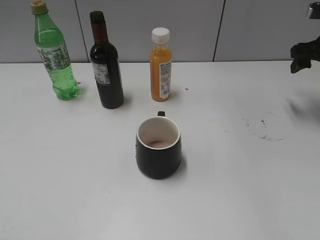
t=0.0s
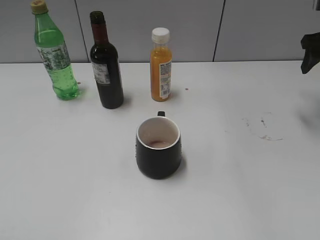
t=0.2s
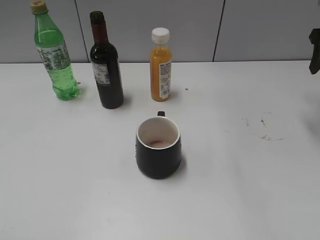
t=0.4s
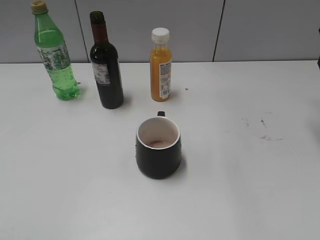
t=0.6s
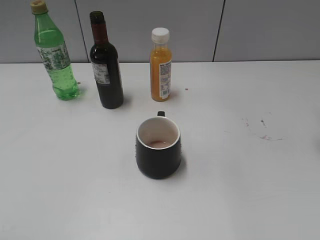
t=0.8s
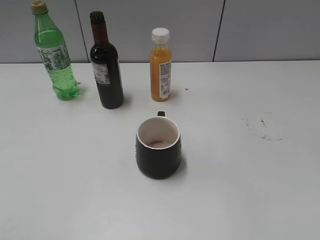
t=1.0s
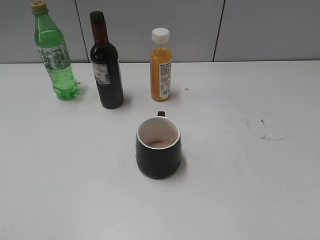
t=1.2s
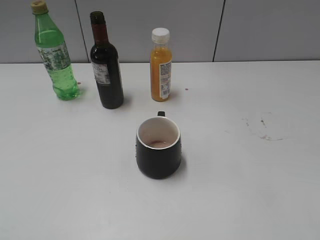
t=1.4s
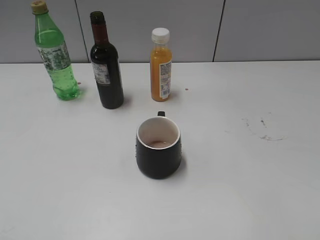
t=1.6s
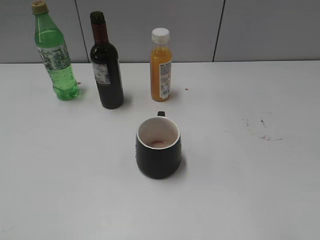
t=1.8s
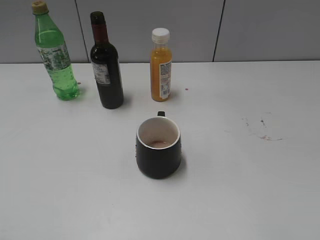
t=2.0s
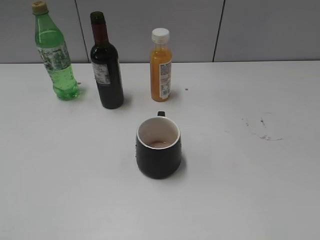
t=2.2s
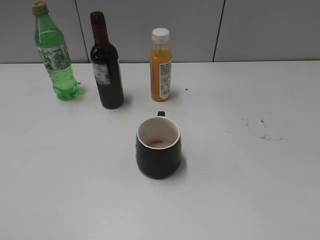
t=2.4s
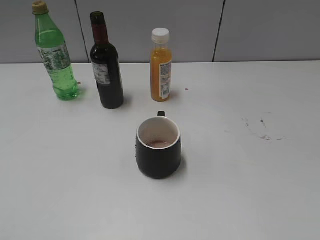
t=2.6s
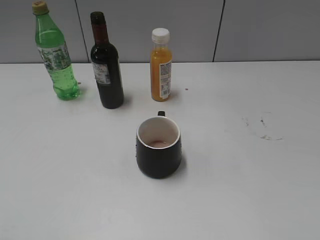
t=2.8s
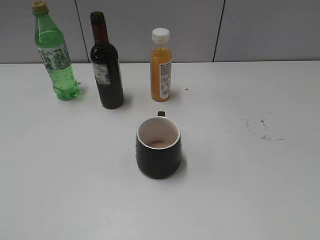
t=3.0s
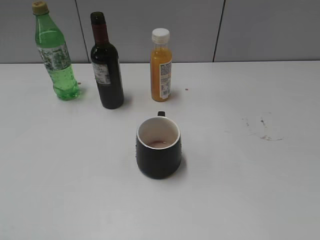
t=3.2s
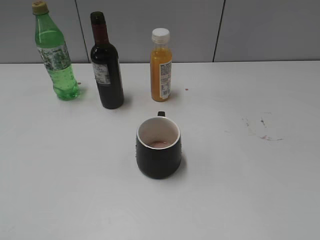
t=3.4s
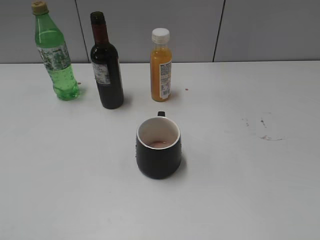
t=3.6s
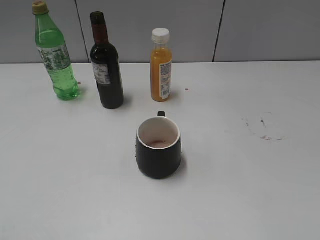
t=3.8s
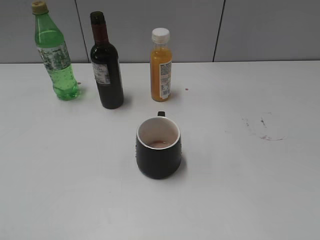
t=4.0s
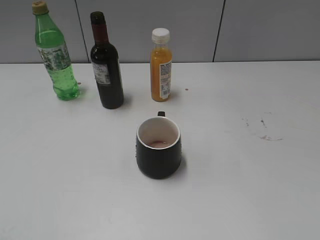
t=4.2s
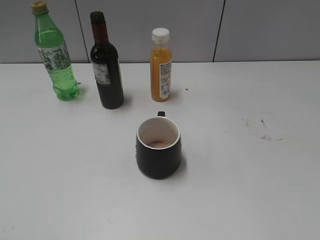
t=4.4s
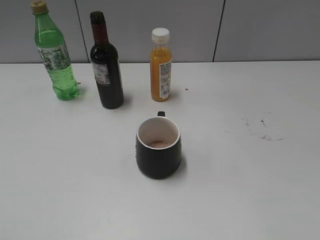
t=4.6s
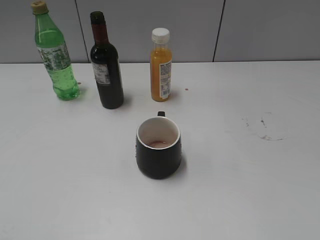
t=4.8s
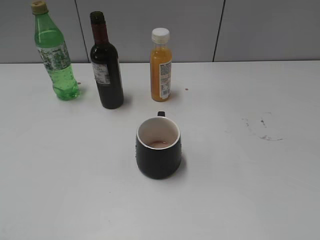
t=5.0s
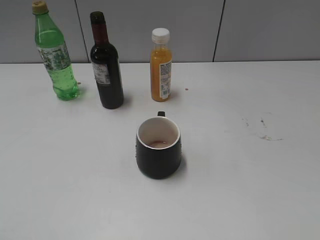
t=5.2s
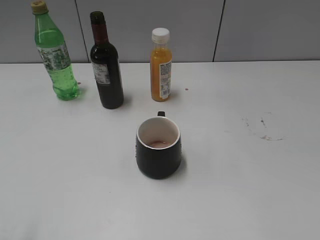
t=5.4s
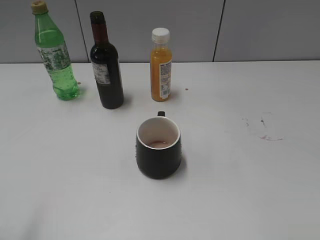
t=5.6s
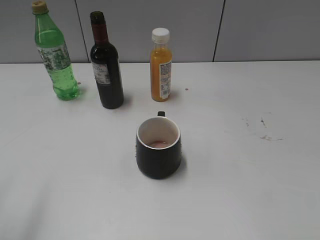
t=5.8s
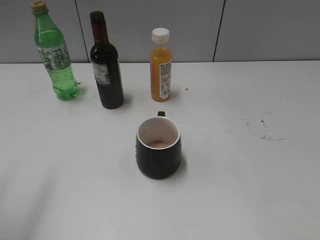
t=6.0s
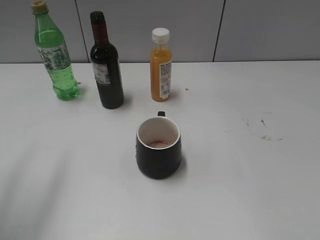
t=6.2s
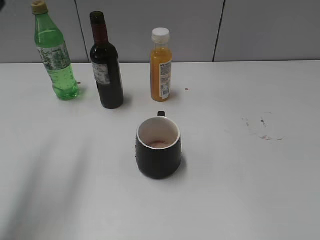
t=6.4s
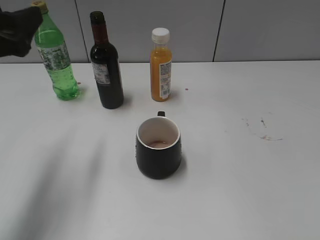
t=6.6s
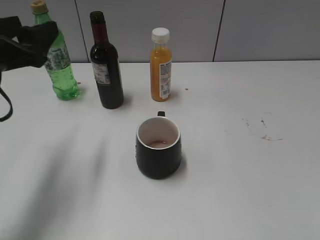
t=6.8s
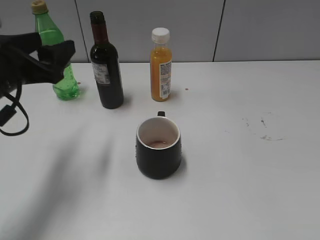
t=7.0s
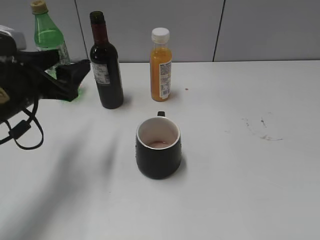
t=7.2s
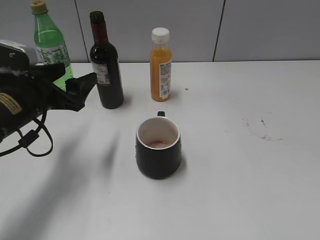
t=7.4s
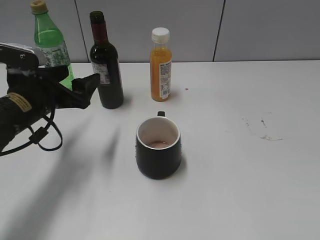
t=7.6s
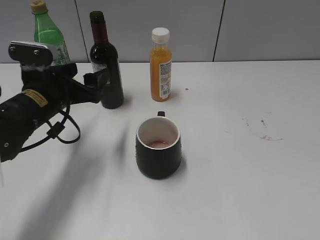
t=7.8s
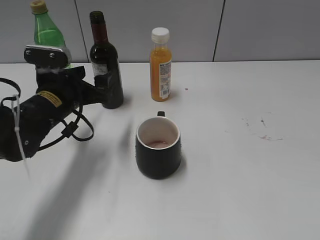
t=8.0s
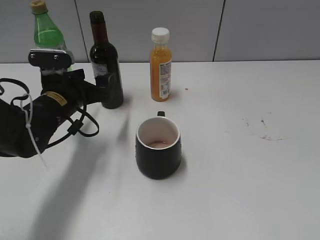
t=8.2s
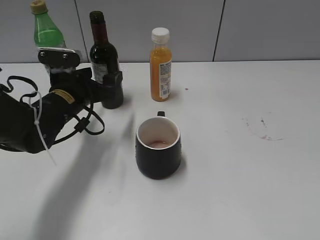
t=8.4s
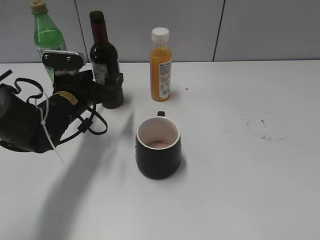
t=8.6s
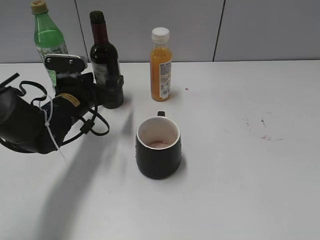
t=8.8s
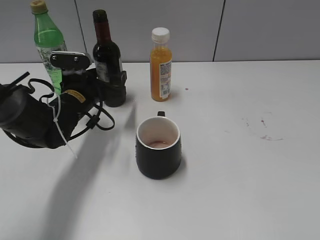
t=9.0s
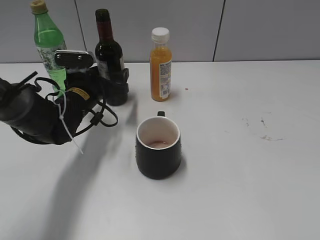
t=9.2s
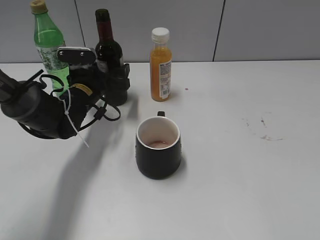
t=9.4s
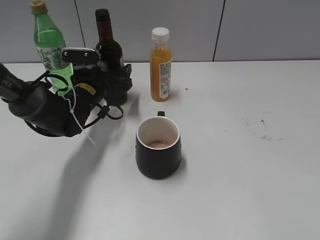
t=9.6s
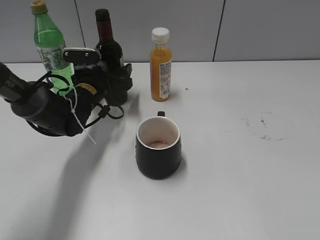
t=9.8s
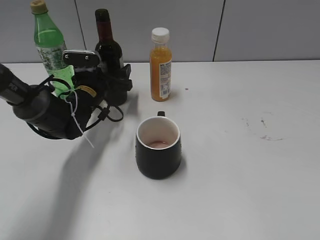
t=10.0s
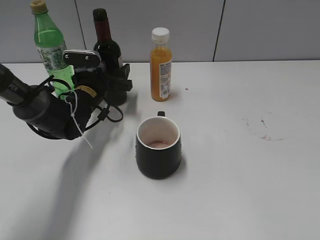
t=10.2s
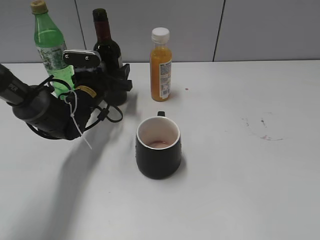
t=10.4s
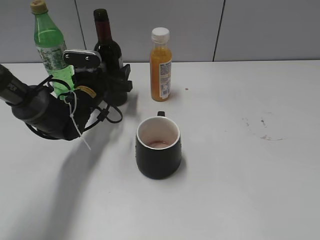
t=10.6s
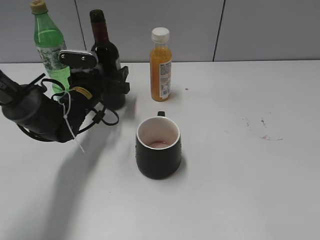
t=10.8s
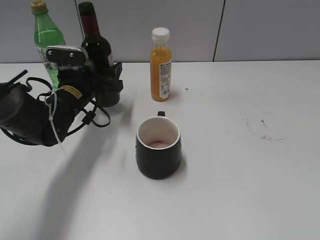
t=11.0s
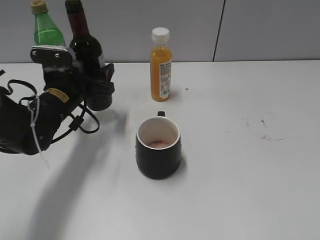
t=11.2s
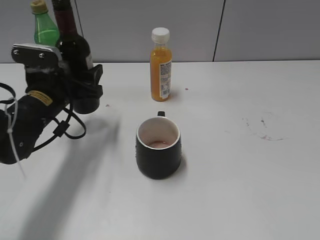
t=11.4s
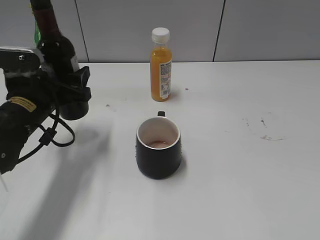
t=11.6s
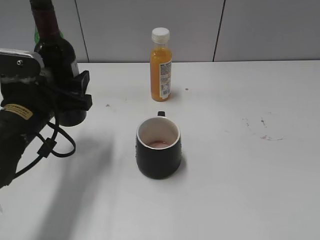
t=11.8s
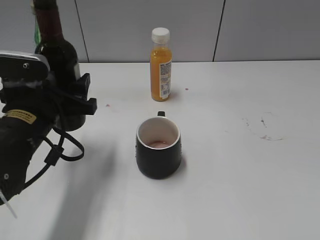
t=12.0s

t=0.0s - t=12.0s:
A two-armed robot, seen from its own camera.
Step, t=0.0s - t=10.6s: Grasp the bottle with red wine with left gripper.
t=0.0s - t=1.6s: The right gripper shifts approximately 30 cm backward.
t=3.0s - t=4.4s: The two grippers keep their place.
t=4.4s - t=6.0s: The left gripper heads forward, covering approximately 15 cm.
t=6.0s - t=7.6s: The left gripper travels downward, forward and to the right by roughly 25 cm, and opens.
t=7.6s - t=9.0s: The left gripper travels forward, to the right and downward by about 10 cm.
t=9.0s - t=10.4s: The left gripper closes its fingers.
t=10.4s - t=12.0s: The left gripper goes some 20 cm backward and upward.

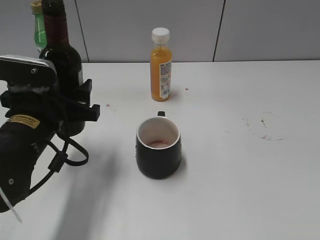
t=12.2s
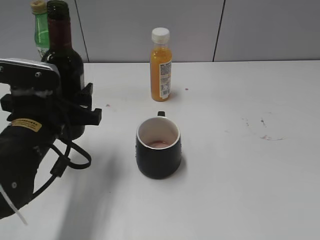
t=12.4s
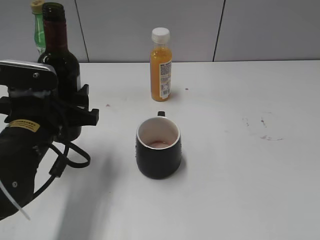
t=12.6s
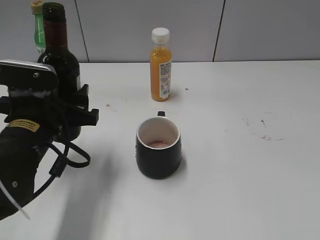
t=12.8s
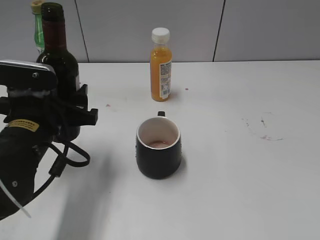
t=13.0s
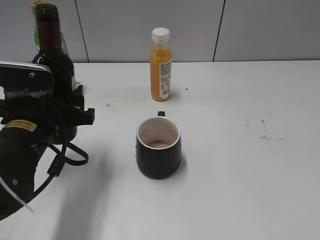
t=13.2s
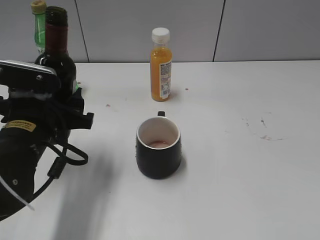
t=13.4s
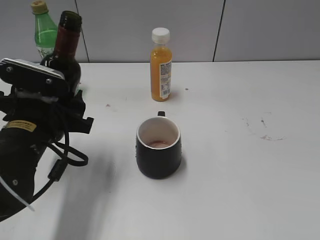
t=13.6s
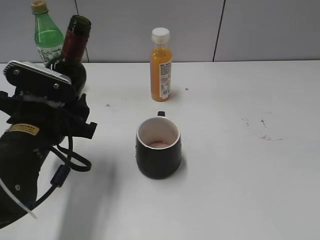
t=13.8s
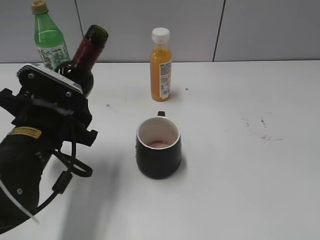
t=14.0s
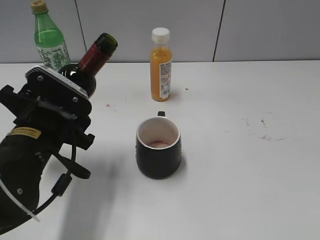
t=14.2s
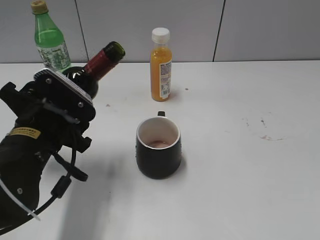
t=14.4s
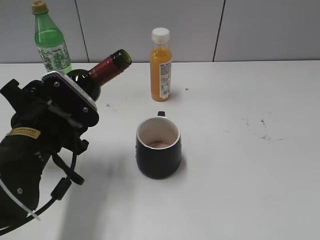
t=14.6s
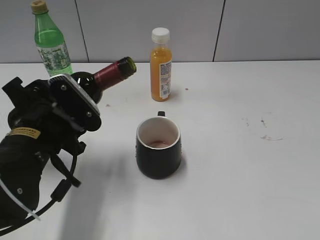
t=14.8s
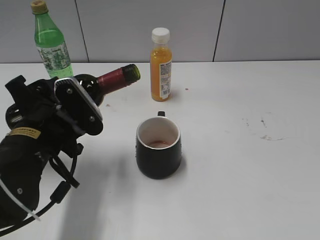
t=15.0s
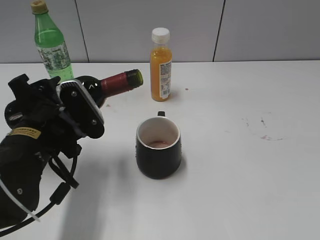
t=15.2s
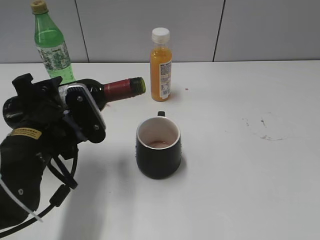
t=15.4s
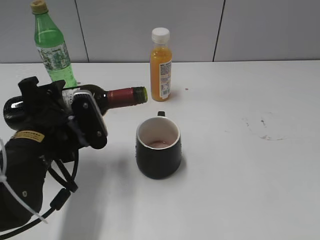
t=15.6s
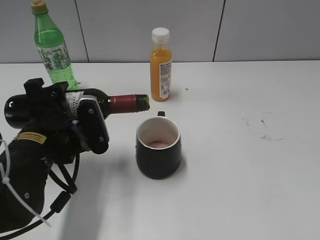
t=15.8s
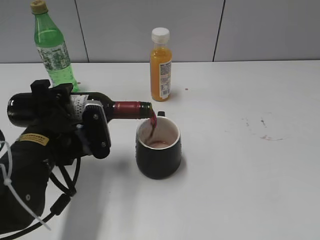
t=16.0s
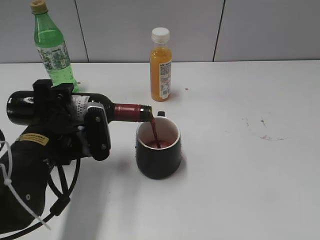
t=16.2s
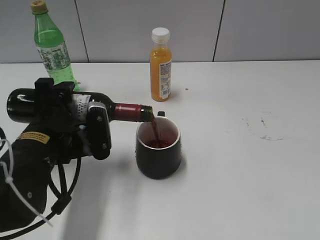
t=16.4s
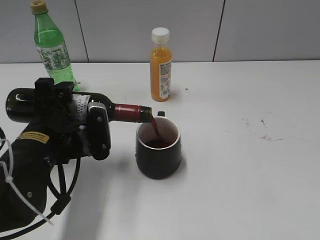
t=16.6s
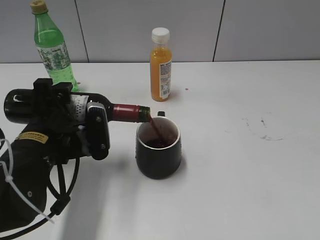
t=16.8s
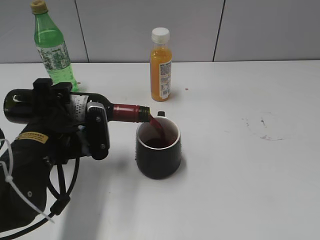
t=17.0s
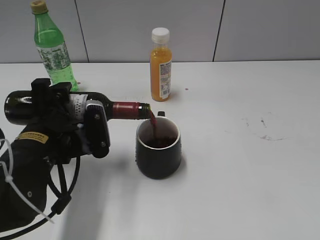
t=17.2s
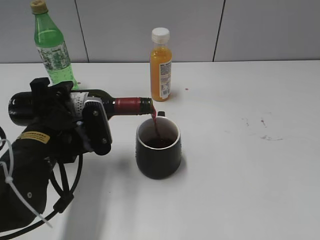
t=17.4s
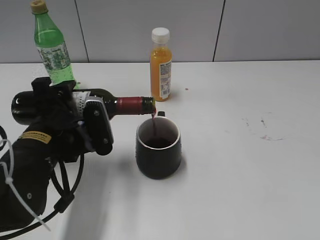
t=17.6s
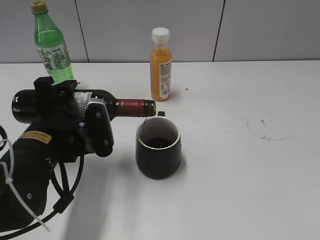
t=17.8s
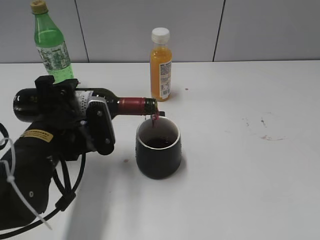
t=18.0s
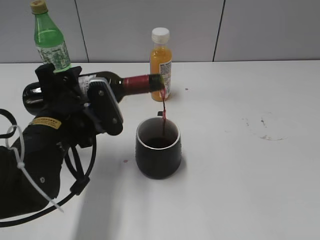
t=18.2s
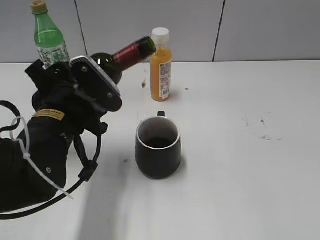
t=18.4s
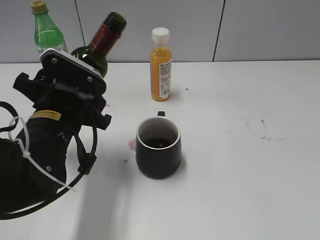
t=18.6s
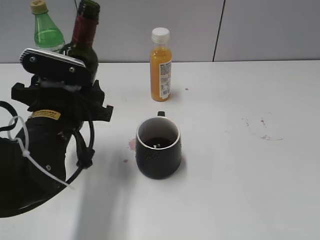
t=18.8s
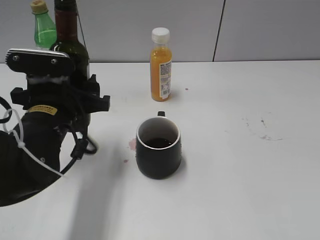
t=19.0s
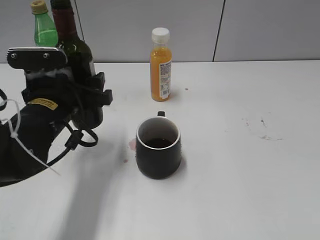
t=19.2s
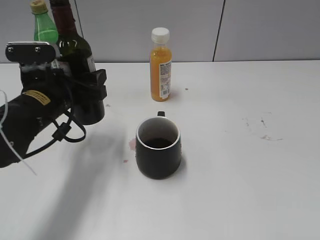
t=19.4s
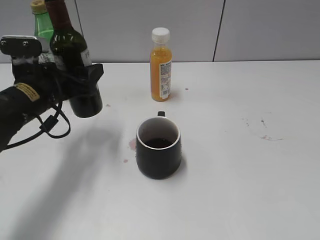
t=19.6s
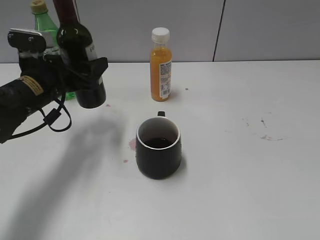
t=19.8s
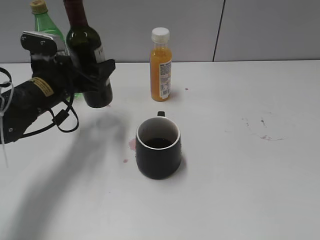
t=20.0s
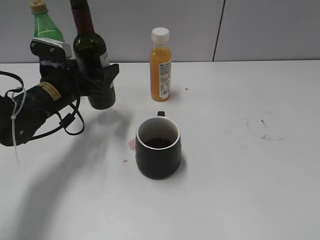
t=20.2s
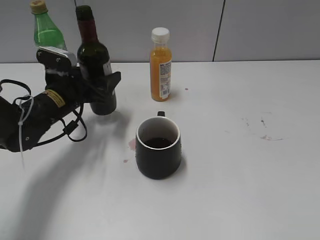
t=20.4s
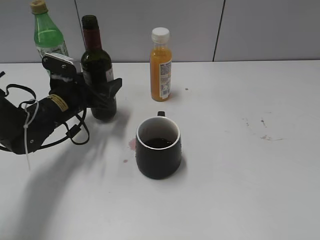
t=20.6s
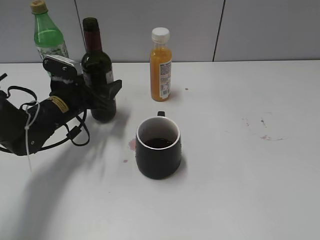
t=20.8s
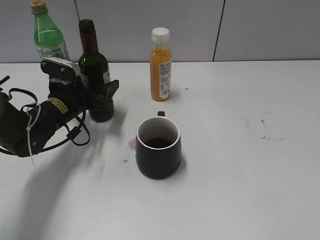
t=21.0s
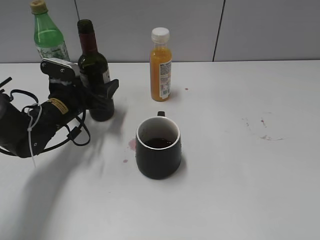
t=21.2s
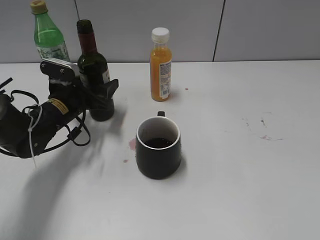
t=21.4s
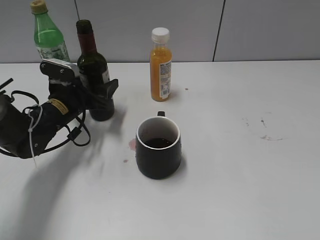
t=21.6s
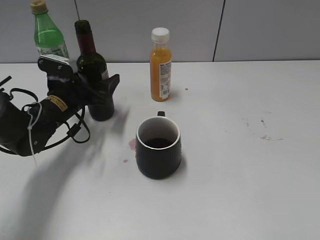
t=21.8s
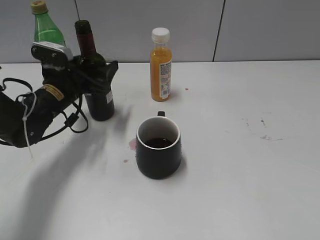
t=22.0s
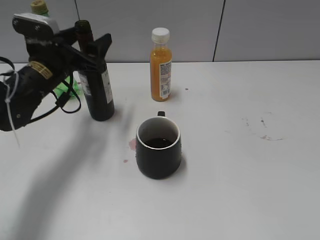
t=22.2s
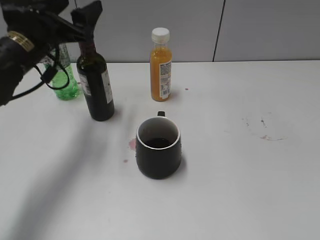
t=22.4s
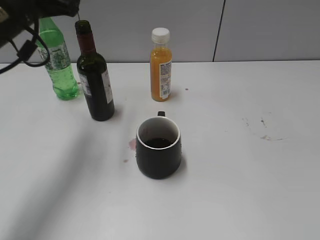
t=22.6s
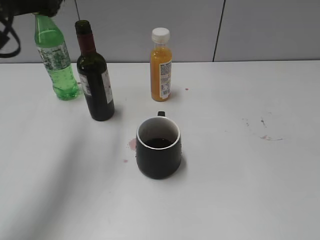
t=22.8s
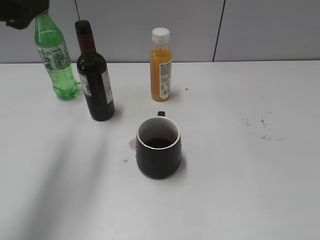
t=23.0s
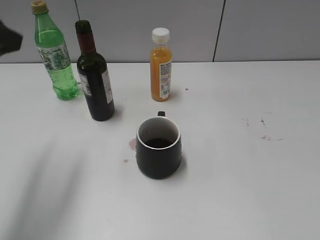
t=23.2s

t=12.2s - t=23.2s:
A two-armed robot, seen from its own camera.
Step, t=12.2s - t=18.4s: Pour the red wine from bottle to cup with left gripper.
Step, t=18.6s - t=21.8s: Place the red wine bottle on the table with left gripper.
t=12.2s - t=13.8s: The grippers make only small movements.
t=15.4s - t=17.0s: There are only small adjustments of the grippers.
t=18.4s - t=20.0s: The left gripper goes about 10 cm forward and to the left.
t=20.0s - t=21.6s: The left gripper shifts some 5 cm downward.
t=21.6s - t=23.2s: The left gripper moves upward and backward, some 30 cm, and opens, then closes once more.
